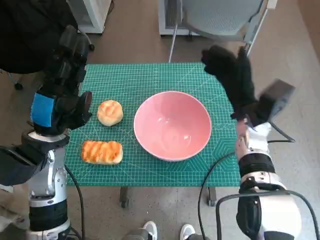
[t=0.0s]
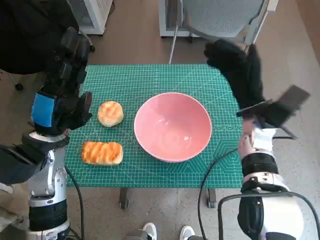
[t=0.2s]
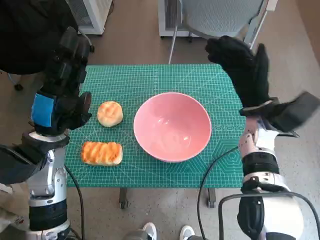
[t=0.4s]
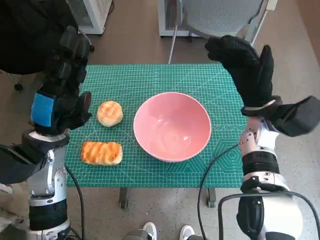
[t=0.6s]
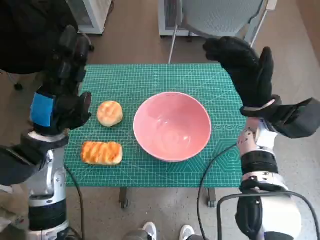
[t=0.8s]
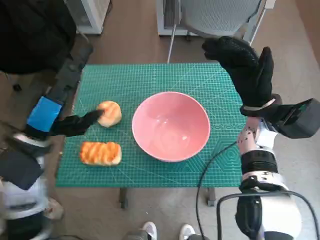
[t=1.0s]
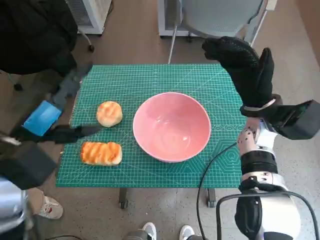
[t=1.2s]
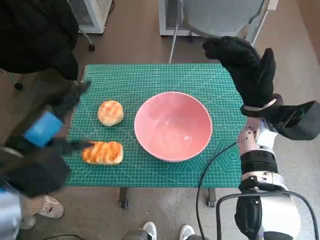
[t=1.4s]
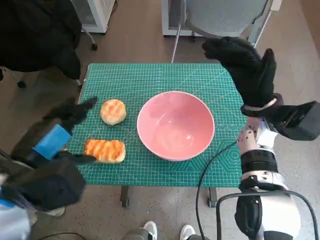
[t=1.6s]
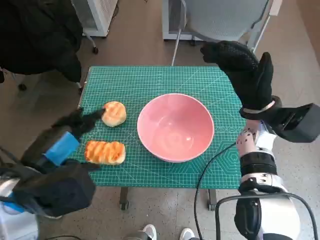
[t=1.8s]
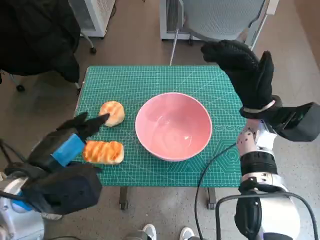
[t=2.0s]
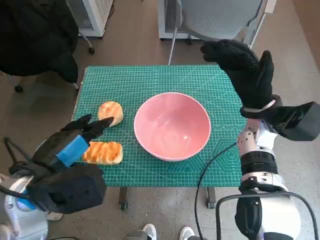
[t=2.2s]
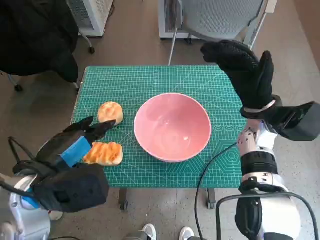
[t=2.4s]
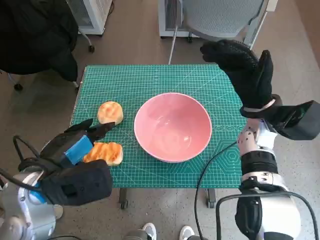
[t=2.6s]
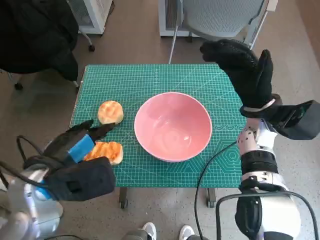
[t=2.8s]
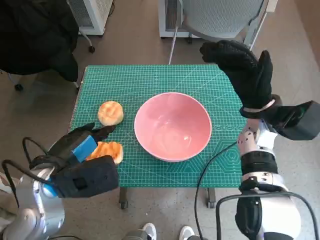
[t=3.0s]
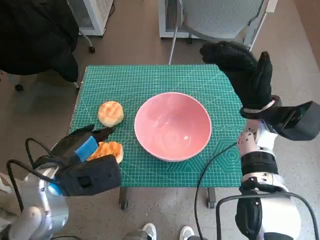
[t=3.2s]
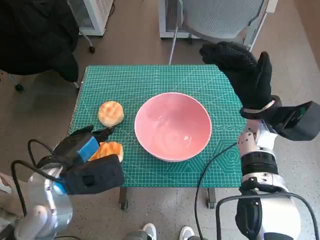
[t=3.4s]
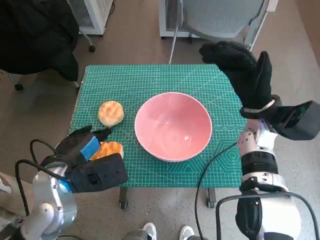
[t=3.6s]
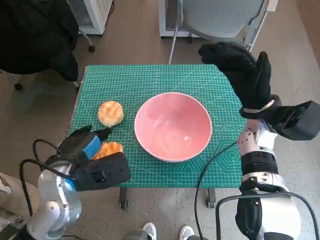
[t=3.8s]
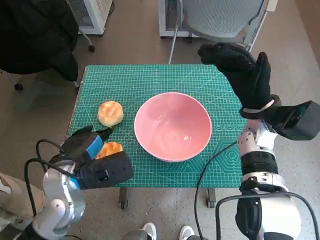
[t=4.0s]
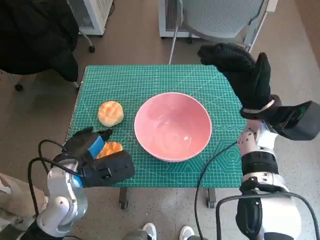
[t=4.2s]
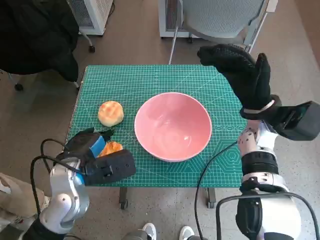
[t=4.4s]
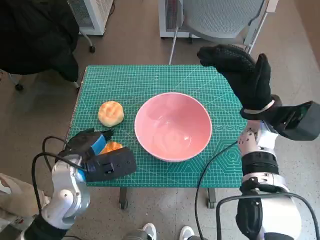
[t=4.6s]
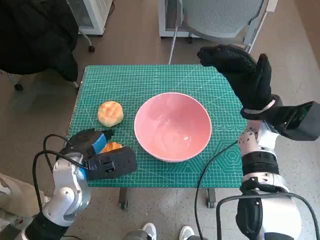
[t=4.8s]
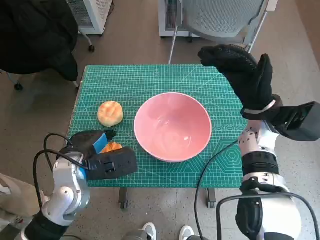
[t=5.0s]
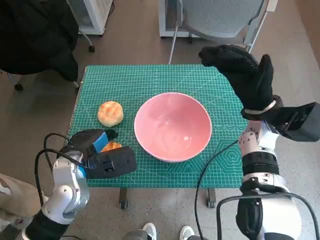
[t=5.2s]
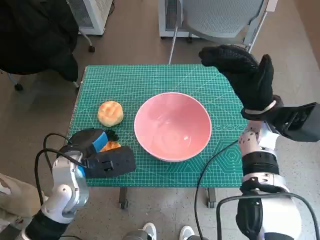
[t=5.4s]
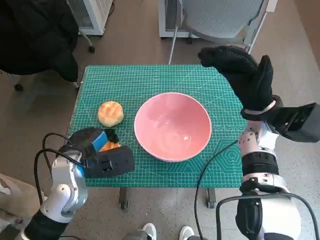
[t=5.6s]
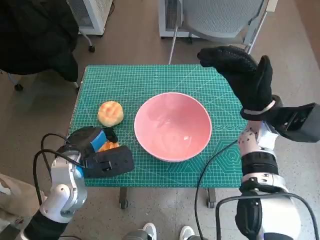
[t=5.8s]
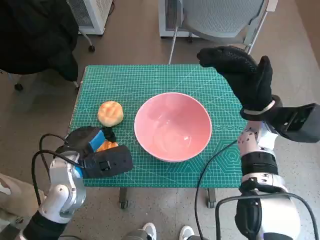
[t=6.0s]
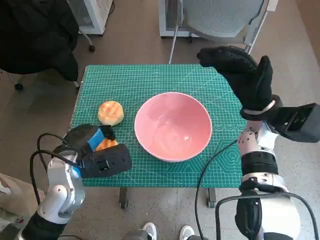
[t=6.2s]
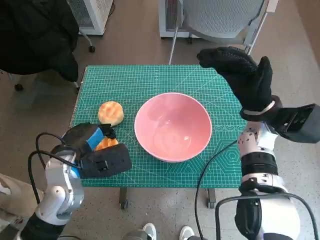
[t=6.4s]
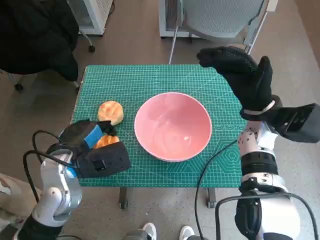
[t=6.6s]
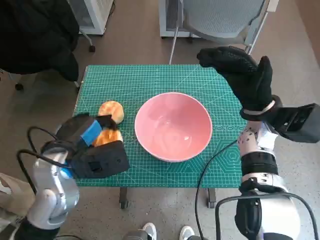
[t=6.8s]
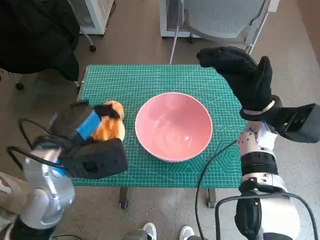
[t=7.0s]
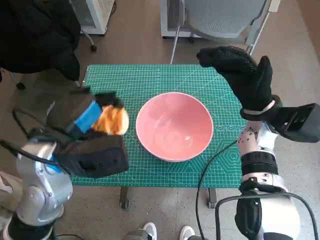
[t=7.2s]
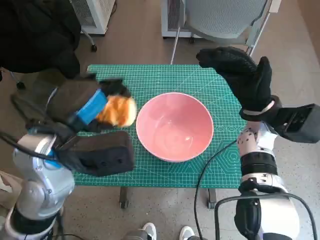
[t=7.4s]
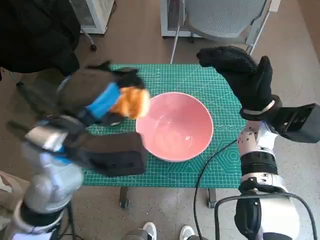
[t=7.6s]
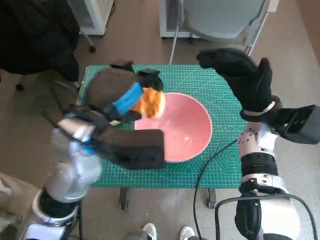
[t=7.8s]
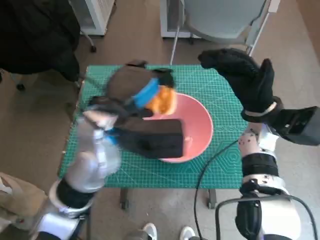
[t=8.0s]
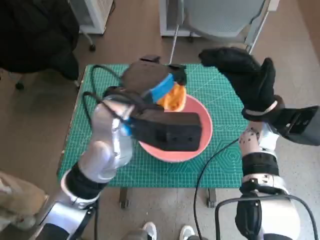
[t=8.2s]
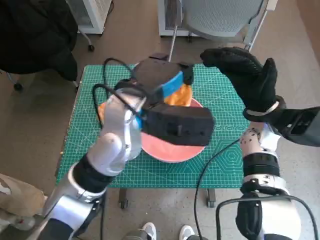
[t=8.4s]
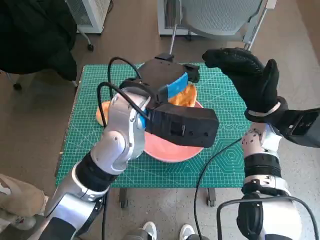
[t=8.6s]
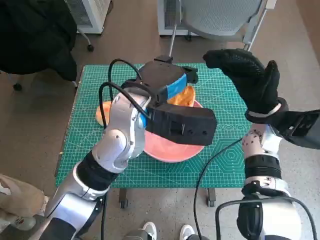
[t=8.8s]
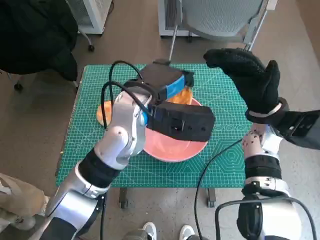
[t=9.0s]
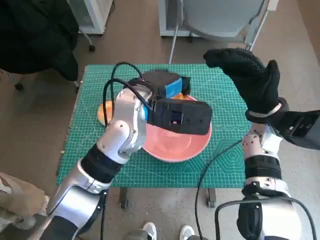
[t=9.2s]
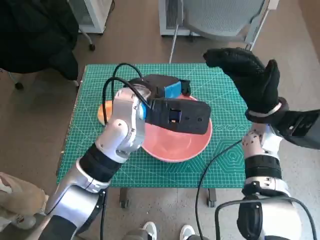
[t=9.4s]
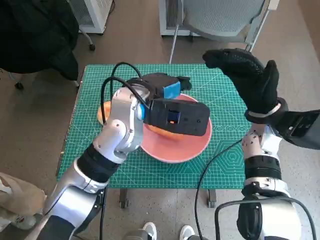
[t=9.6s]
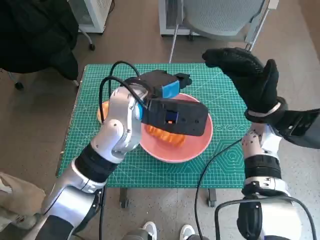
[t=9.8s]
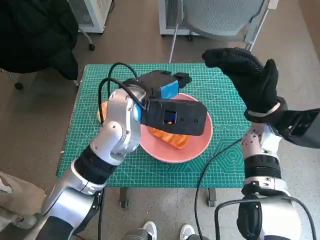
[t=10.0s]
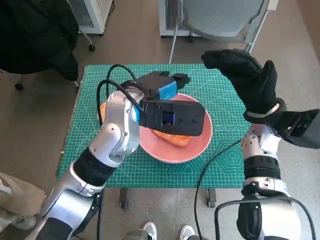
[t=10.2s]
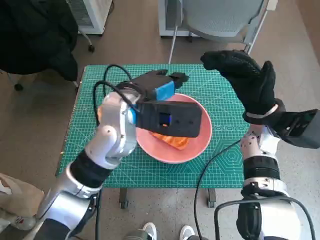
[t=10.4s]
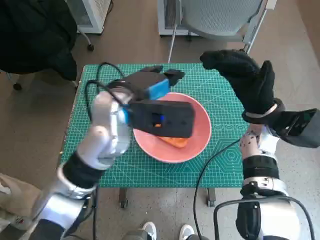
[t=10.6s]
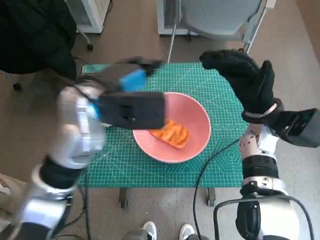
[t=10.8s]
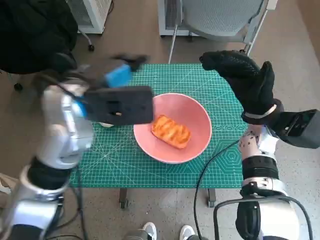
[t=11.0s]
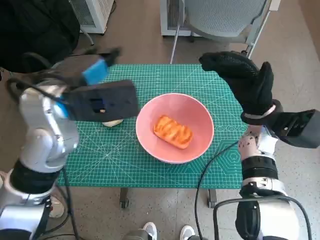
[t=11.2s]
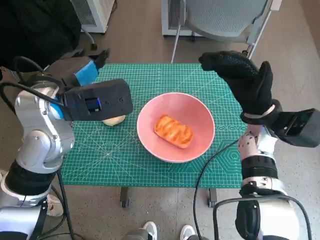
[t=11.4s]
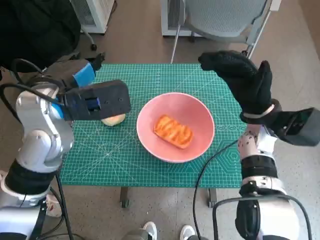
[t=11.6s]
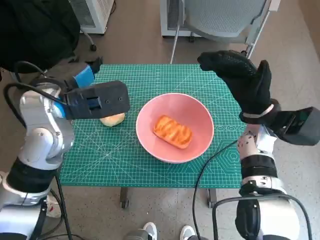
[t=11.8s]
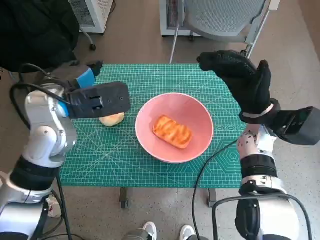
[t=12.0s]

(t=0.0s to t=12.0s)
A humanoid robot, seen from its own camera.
Step, t=0.0s - t=5.6s: Grasp the long bread with left hand.
Step, t=5.8s - t=10.2s: Place the long bread in pink bowl with left hand.
t=0.0s - t=1.6s: The left hand heads backward, covering some 5 cm.
t=1.6s - t=3.0s: The left hand moves some 5 cm.
t=3.0s - t=4.4s: The left hand ends up about 5 cm from where it was.
t=4.4s - t=6.0s: The hands stay close to where they were, moving slightly.
t=6.0s - t=7.6s: The left hand heads upward, covering about 15 cm.
t=7.6s - t=9.0s: The left hand is displaced to the right and forward by approximately 10 cm.
t=9.0s - t=10.4s: The hands move only a little.
t=10.4s - t=12.0s: The left hand moves to the left, roughly 10 cm.

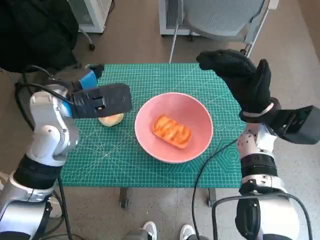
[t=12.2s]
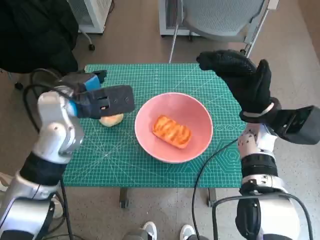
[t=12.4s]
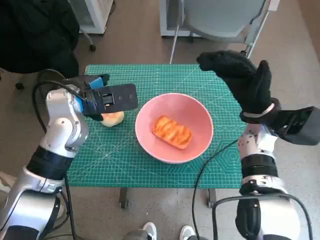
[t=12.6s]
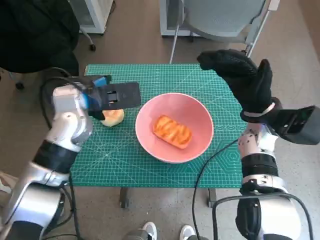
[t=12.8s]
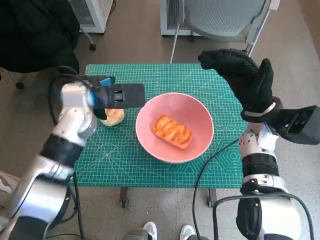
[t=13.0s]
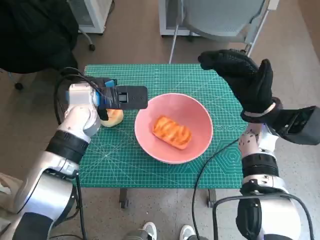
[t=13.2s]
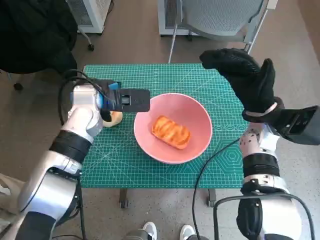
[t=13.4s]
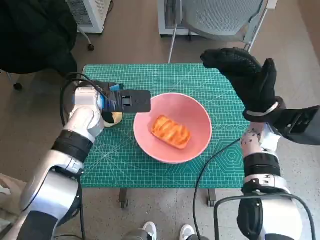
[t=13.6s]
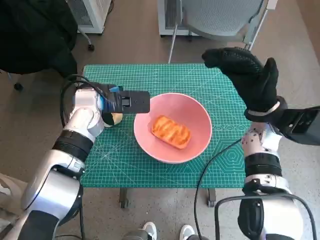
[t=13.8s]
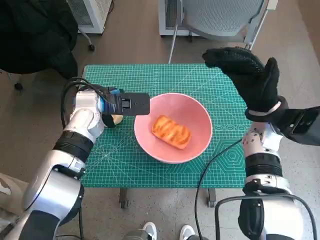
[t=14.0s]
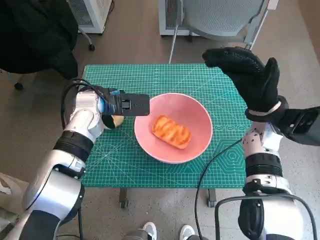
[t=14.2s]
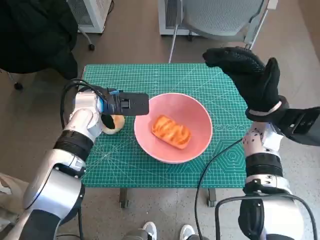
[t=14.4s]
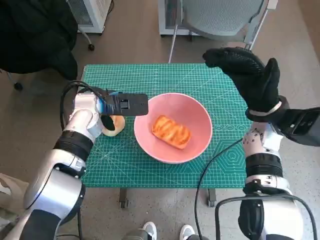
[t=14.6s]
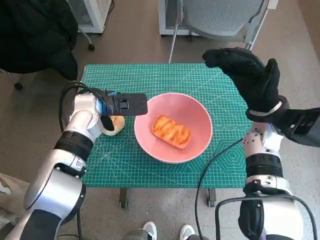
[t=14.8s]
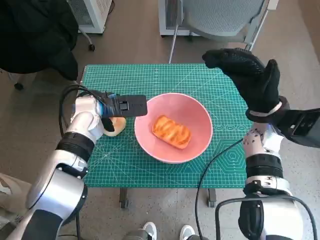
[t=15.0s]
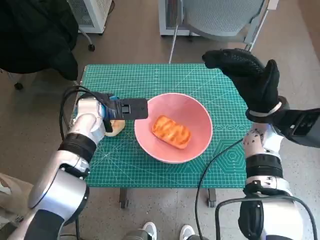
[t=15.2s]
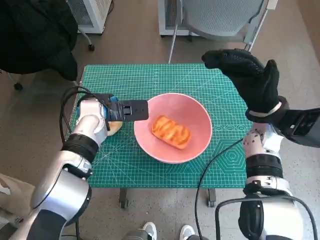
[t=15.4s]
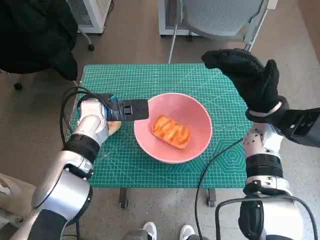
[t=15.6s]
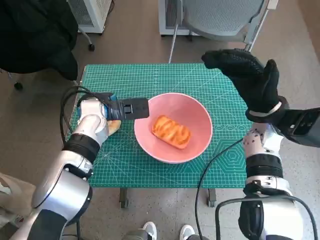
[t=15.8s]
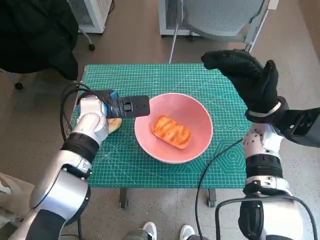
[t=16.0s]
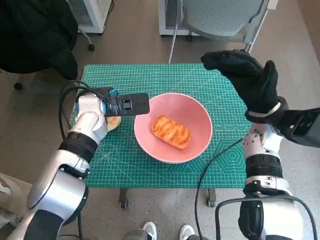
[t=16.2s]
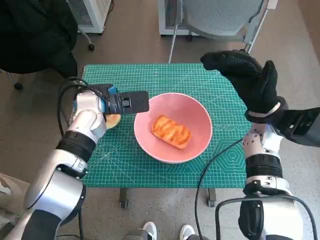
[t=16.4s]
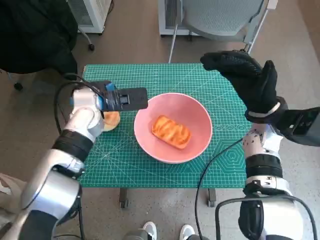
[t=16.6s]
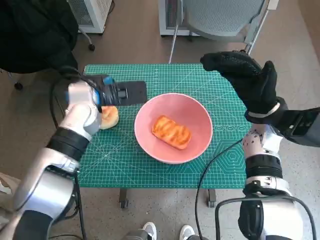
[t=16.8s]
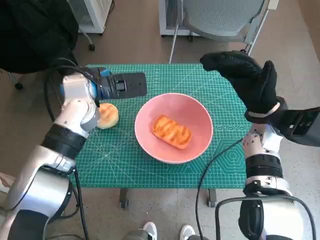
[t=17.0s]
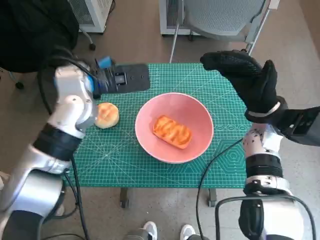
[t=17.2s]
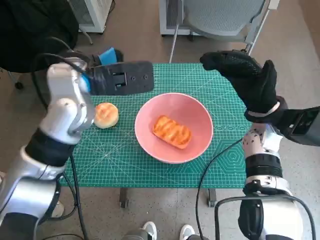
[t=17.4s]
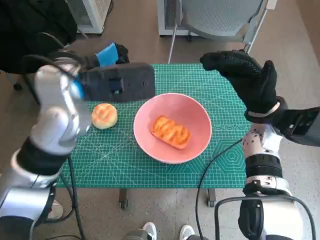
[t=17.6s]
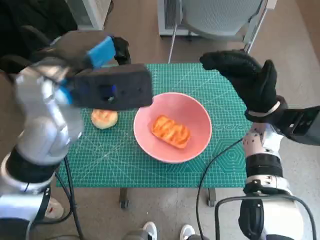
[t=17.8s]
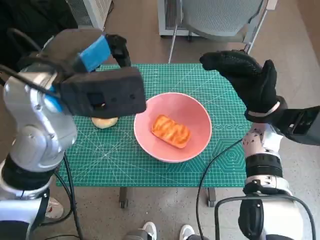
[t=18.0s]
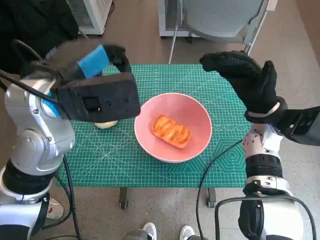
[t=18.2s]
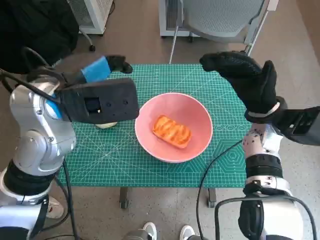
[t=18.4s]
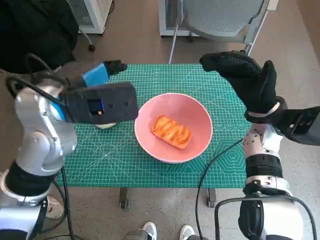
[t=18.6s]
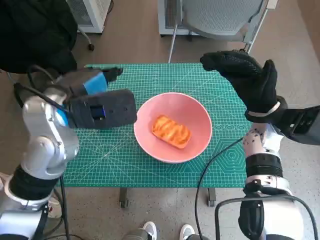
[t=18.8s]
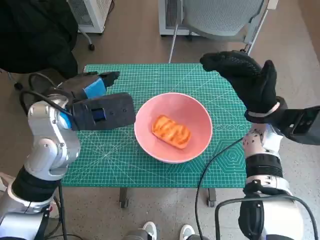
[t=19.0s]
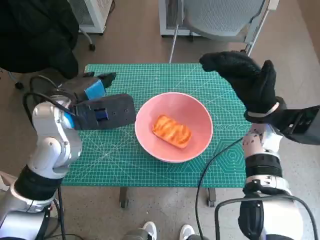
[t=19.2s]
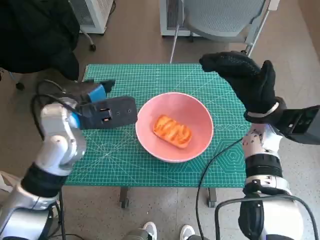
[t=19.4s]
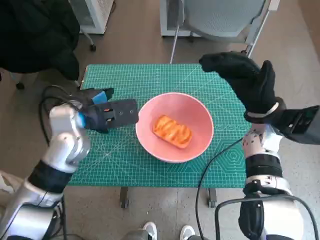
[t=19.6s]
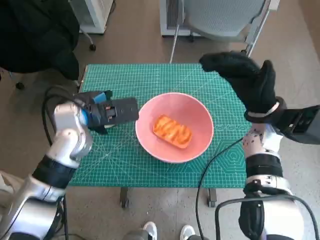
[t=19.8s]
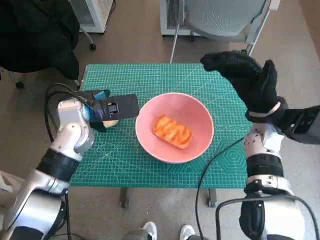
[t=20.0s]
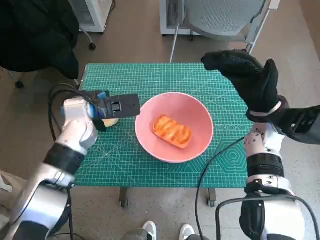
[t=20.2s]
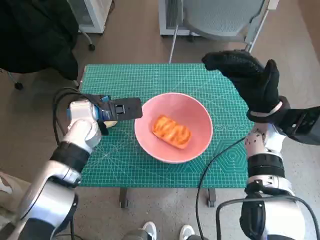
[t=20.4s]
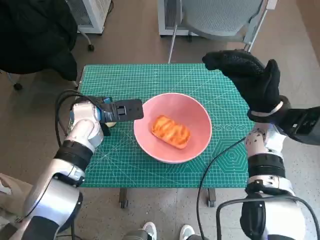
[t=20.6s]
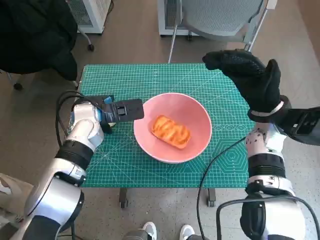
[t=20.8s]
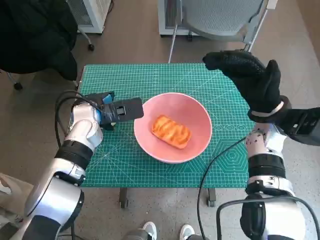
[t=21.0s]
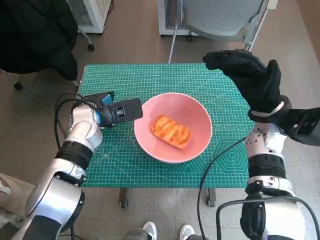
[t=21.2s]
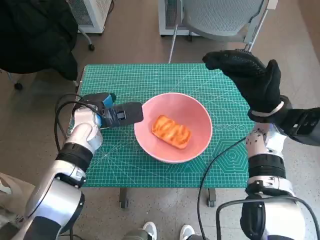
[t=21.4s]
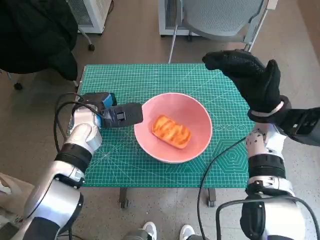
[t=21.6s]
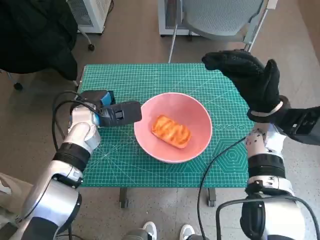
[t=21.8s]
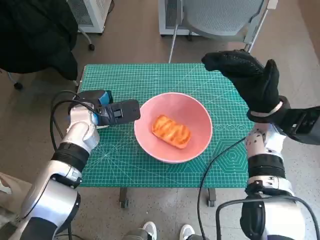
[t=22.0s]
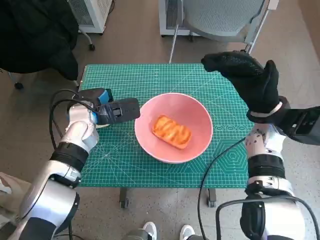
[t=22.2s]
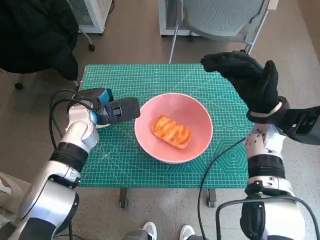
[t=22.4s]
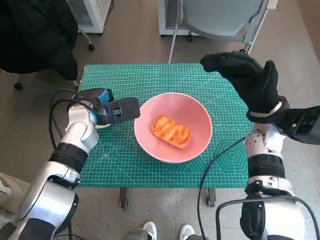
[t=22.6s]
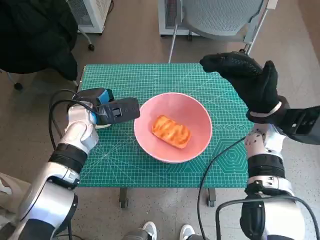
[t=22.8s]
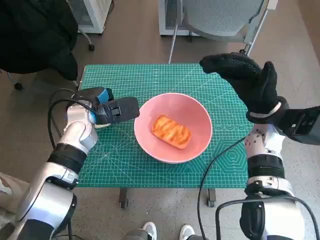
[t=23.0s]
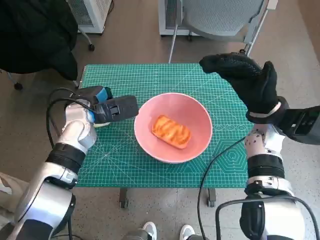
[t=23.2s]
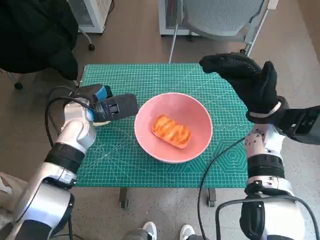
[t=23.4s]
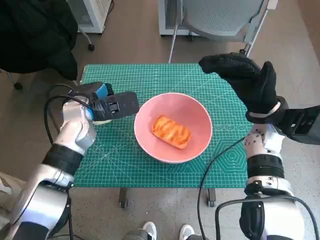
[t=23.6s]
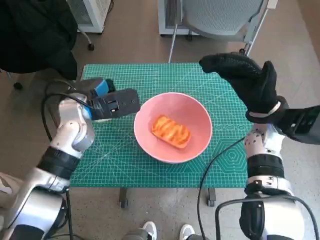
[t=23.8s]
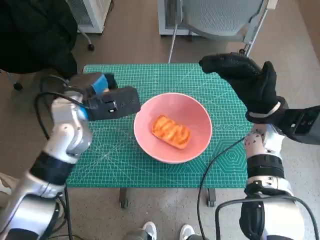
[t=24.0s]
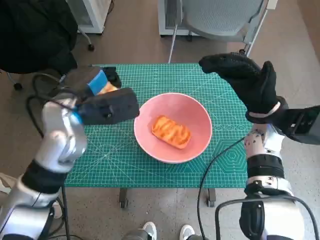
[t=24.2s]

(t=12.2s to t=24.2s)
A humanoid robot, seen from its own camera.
Step, t=12.2s - t=21.8s: Grasp the round bread with left hand.
t=12.2s - t=13.8s: The left hand travels downward and forward by roughly 10 cm.
t=13.8s - t=16.6s: There are only small adjustments of the hands.
t=16.6s - t=18.2s: The left hand shifts roughly 15 cm upward and backward.
t=18.2s - t=19.8s: The left hand travels downward and forward by some 15 cm.
t=19.8s - t=21.2s: The left hand moves downward, roughly 5 cm.
t=21.2s - t=22.6s: The hands stay close to where they were, moving slightly.
t=22.6s - t=24.2s: The left hand shifts approximately 10 cm upward.
